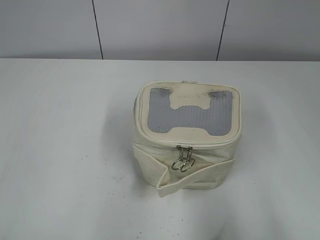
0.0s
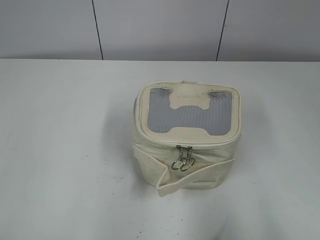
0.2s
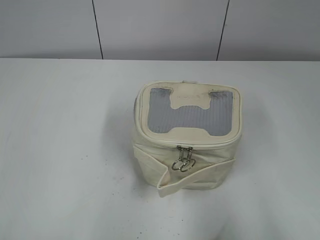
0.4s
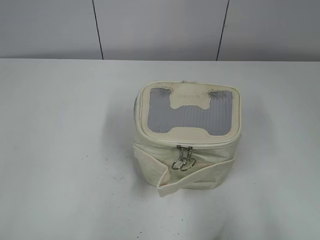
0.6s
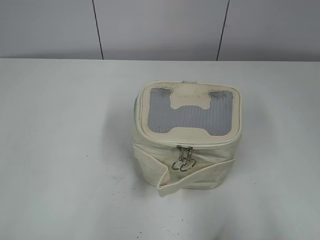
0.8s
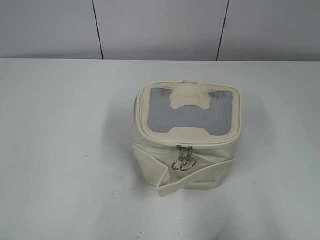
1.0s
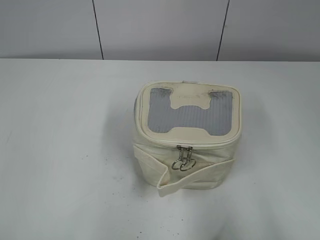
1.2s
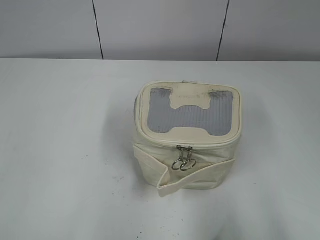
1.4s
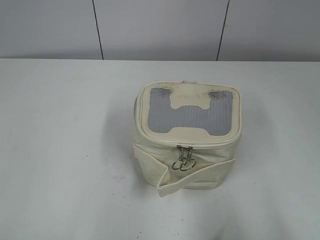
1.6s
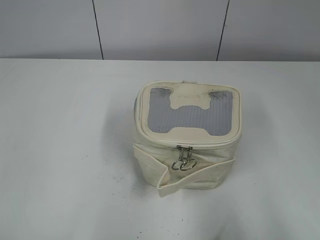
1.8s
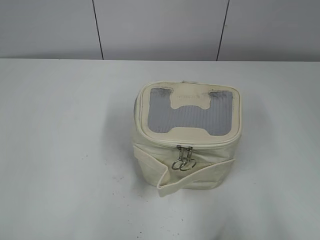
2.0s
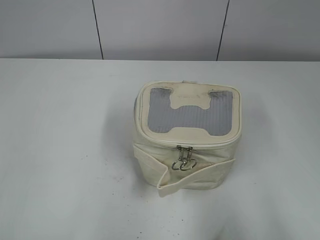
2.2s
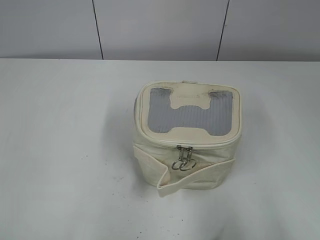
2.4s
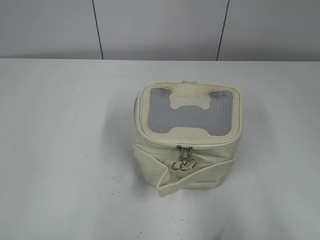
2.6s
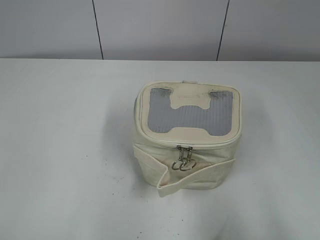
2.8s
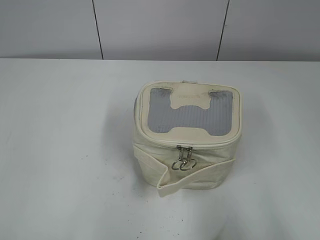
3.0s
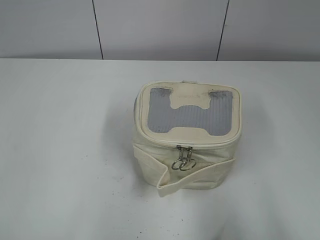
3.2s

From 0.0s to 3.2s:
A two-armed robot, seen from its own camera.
From 1.6s to 3.2s: The two grippers keep their place.

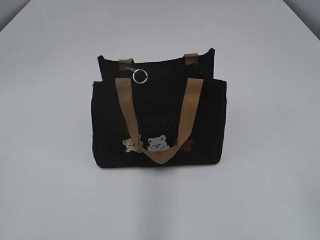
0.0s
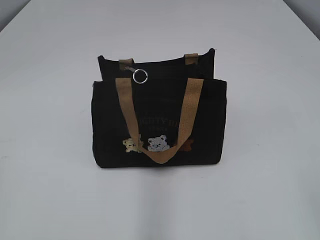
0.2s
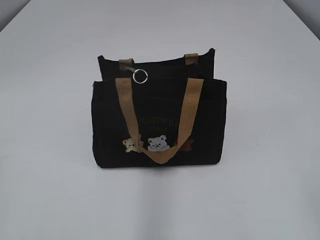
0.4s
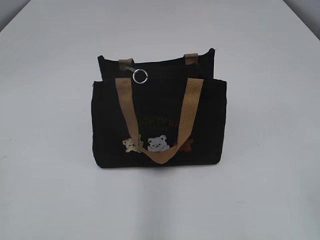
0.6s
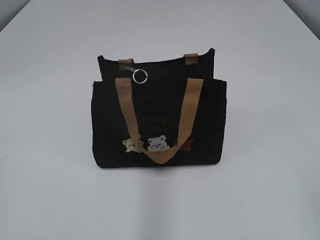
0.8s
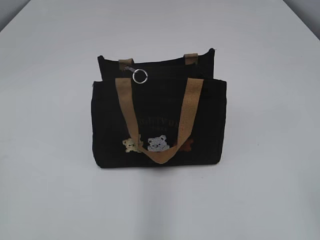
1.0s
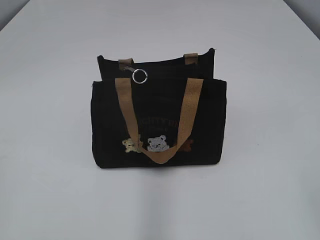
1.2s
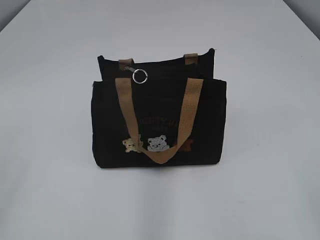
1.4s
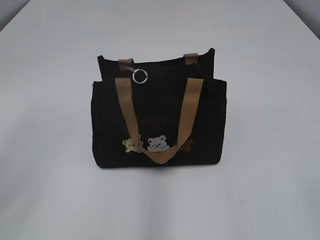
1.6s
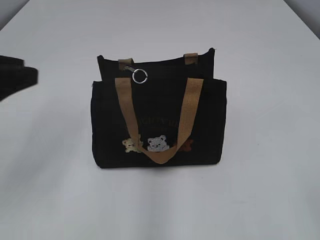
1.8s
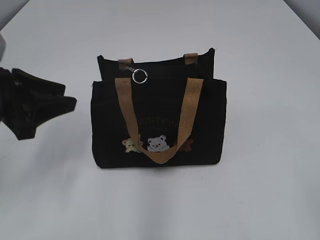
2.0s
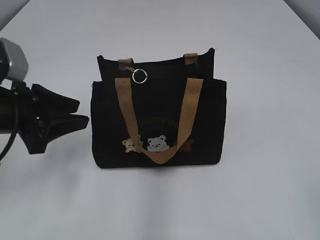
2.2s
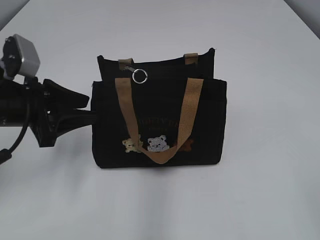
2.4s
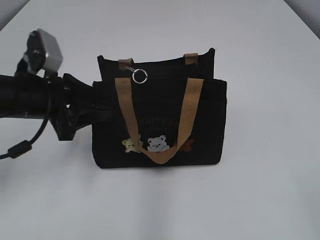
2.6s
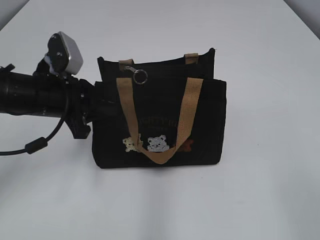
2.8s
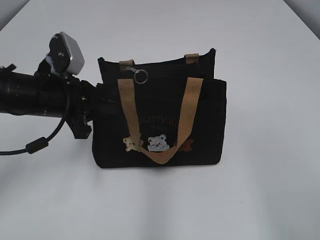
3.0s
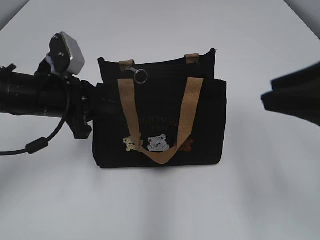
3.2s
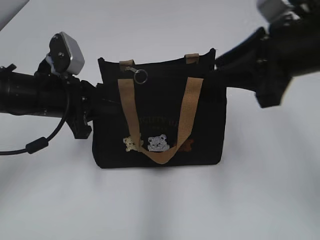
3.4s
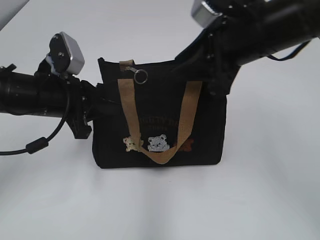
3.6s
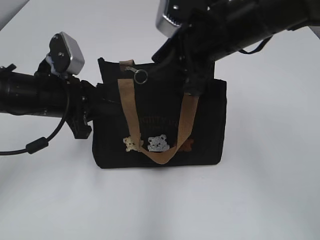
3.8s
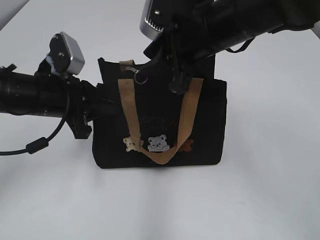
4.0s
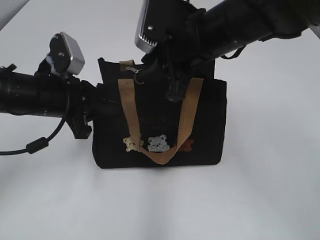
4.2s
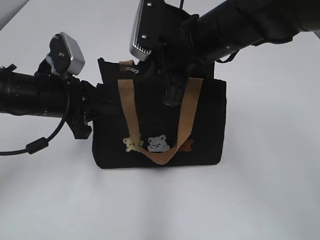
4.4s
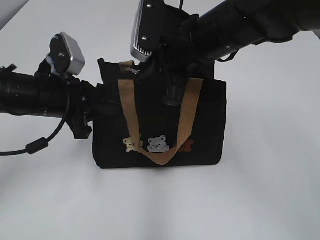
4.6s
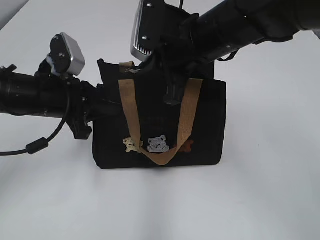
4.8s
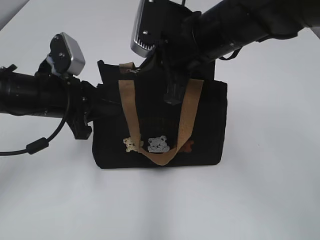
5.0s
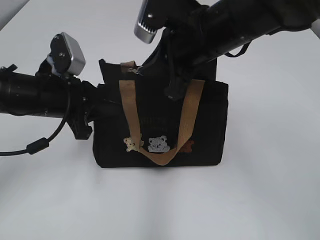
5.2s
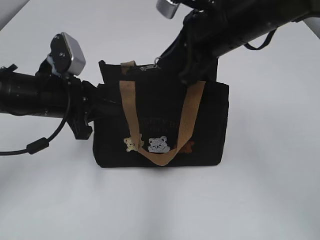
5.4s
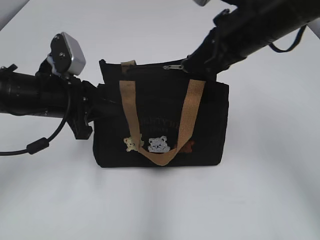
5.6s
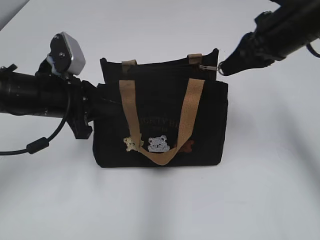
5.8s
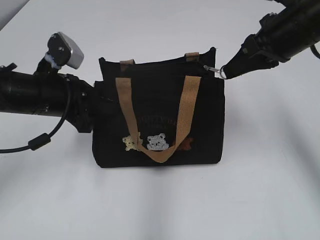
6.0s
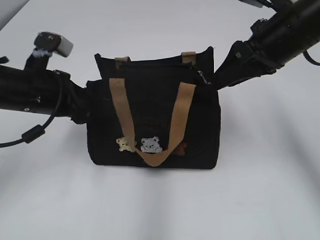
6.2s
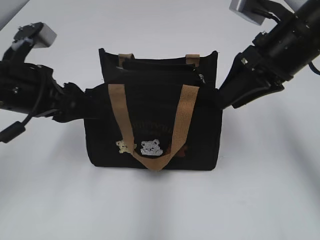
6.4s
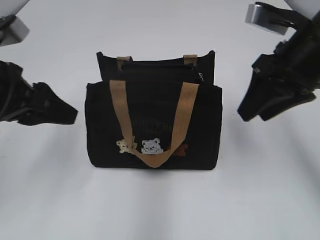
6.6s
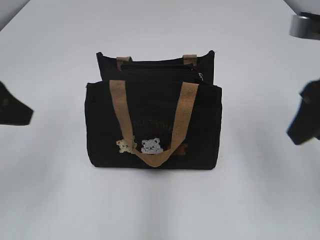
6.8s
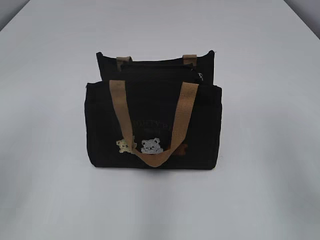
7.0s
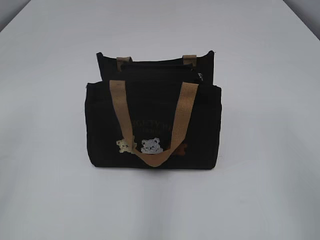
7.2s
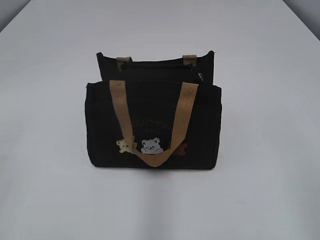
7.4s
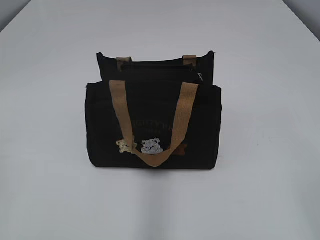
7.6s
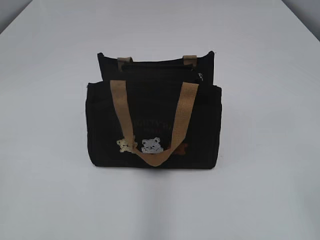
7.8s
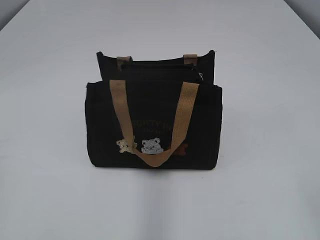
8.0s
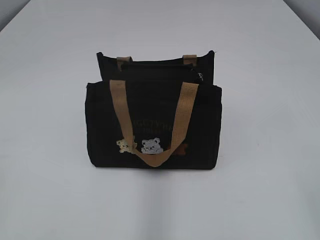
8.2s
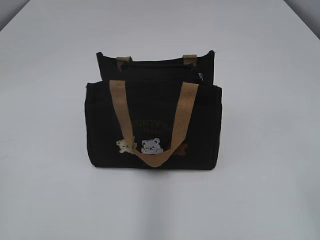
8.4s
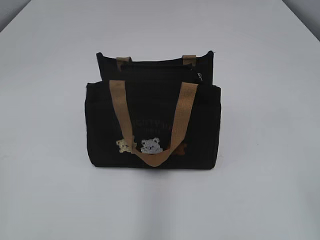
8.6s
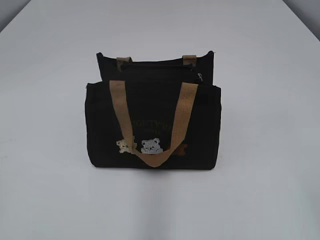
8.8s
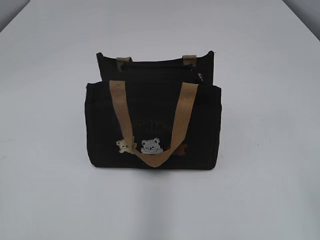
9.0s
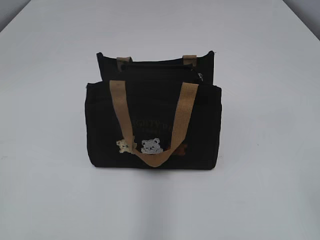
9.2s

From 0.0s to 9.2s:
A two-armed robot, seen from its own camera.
Step, from 0.0s to 6.0s: Pull open the zipper with your right hand.
Step, from 6.2s to 6.4s: Hold the bag with your left hand.
From 1.6s to 3.0s: The left gripper shifts approximately 30 cm forward, downward and to the right, and closes its fingers.
From 3.0s to 4.6s: The right gripper goes some 35 cm forward and to the left.
From 4.6s to 6.2s: The right gripper travels to the right by about 15 cm, and closes, then reopens; the left gripper opens its fingers.
From 6.2s to 7.6s: The left gripper travels backward, to the left and upward by about 30 cm, and opens, then closes once more, while the right gripper moves backward, some 30 cm, and opens up.
